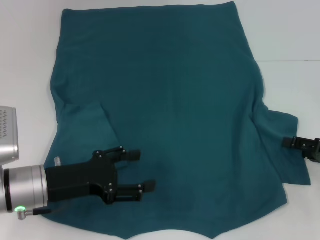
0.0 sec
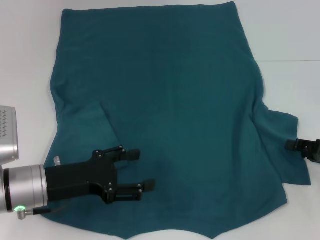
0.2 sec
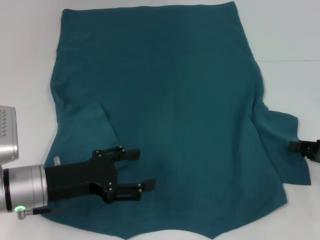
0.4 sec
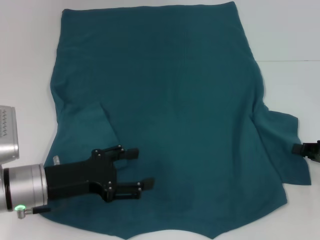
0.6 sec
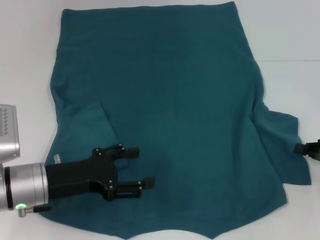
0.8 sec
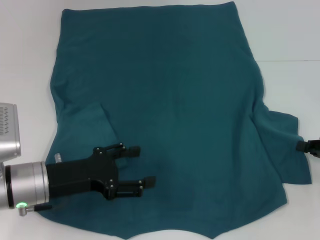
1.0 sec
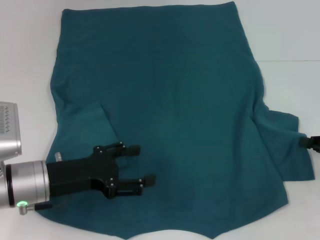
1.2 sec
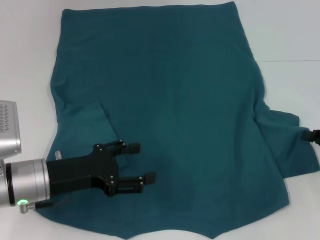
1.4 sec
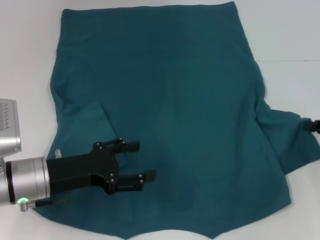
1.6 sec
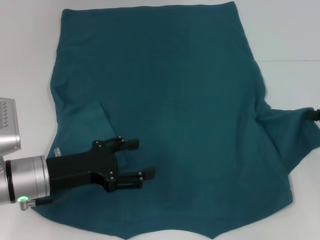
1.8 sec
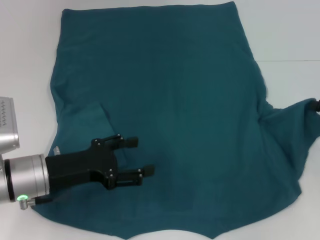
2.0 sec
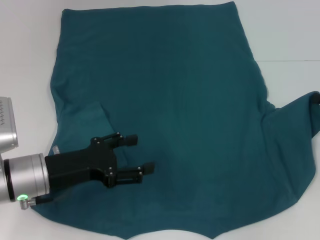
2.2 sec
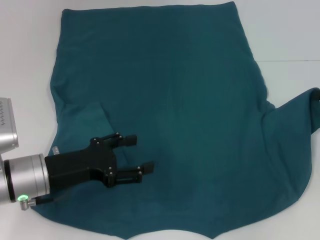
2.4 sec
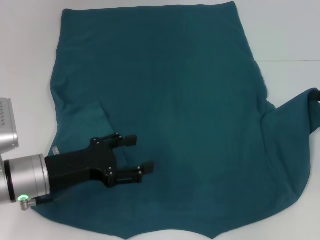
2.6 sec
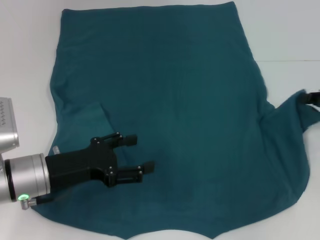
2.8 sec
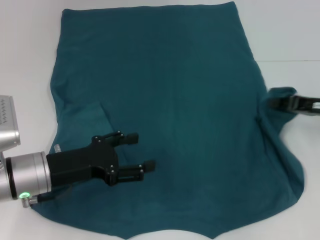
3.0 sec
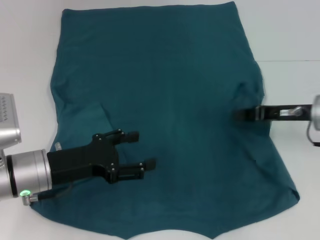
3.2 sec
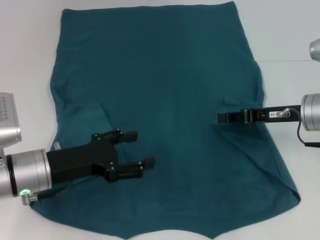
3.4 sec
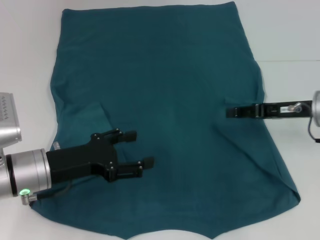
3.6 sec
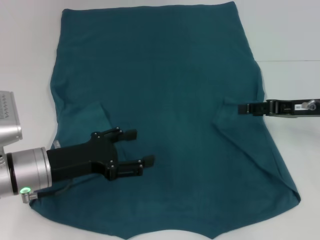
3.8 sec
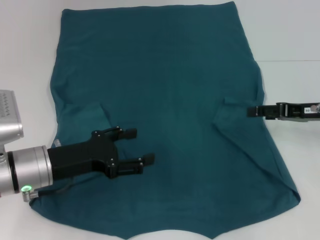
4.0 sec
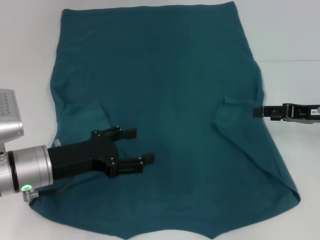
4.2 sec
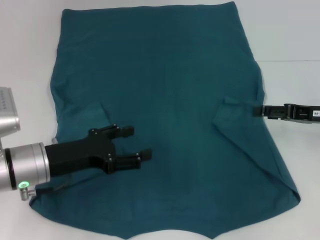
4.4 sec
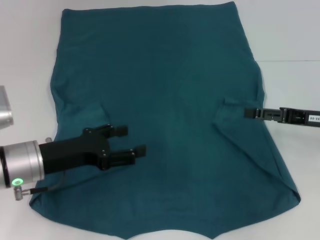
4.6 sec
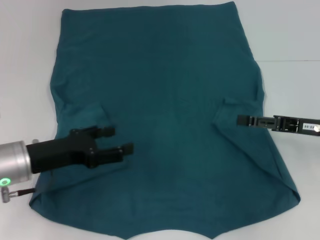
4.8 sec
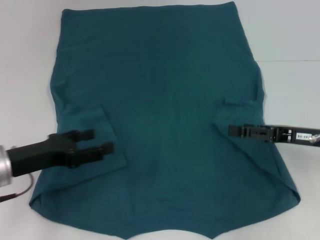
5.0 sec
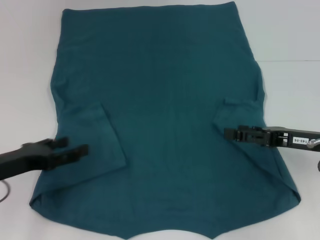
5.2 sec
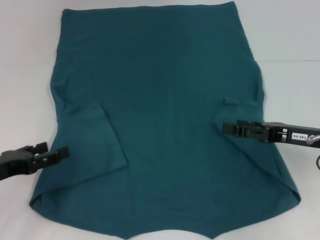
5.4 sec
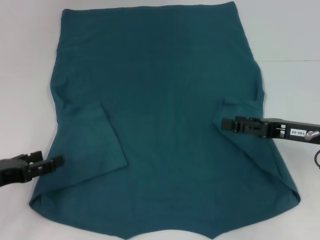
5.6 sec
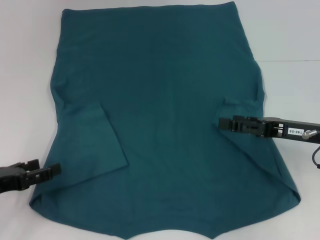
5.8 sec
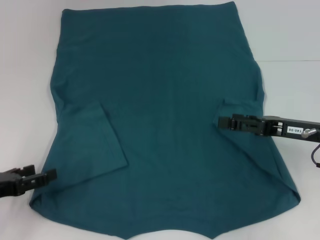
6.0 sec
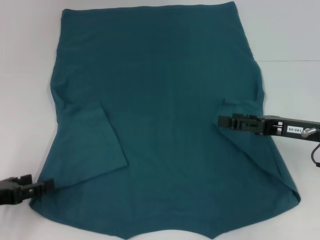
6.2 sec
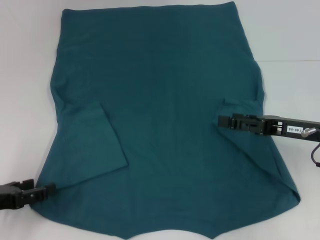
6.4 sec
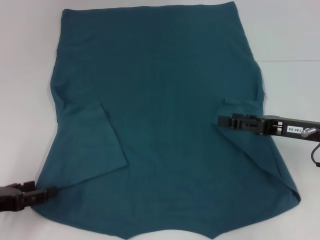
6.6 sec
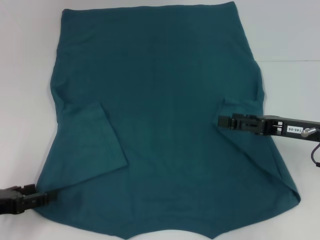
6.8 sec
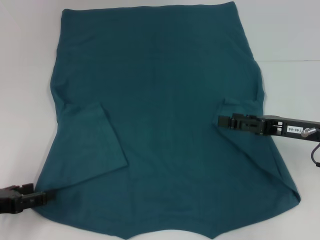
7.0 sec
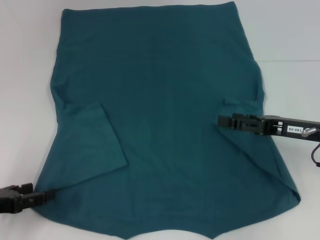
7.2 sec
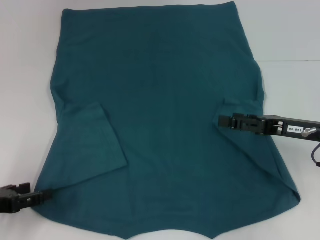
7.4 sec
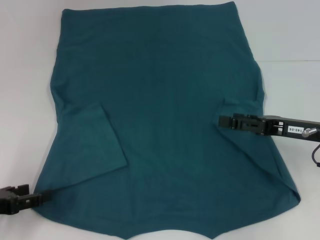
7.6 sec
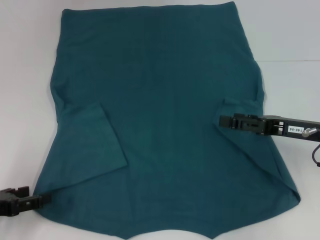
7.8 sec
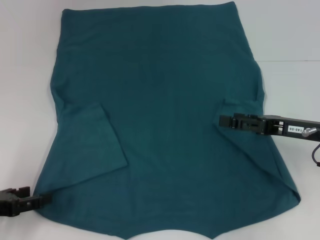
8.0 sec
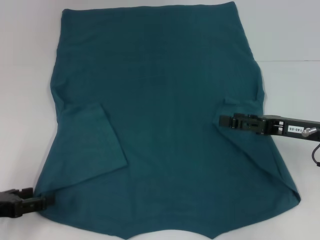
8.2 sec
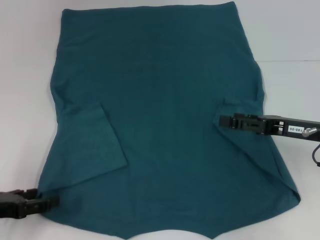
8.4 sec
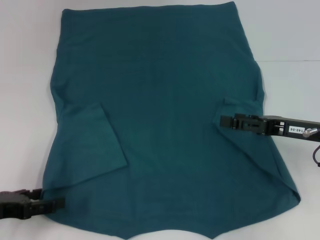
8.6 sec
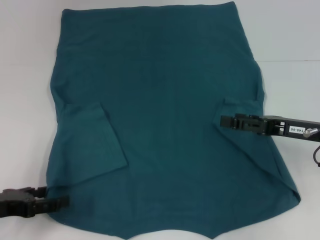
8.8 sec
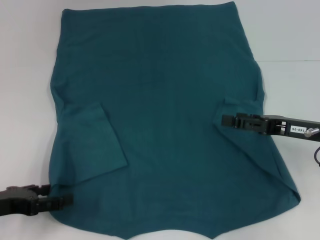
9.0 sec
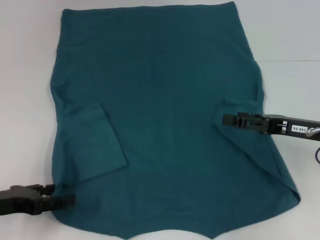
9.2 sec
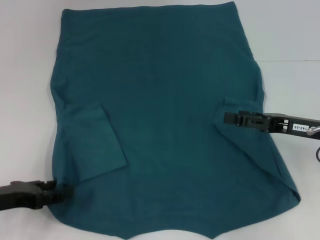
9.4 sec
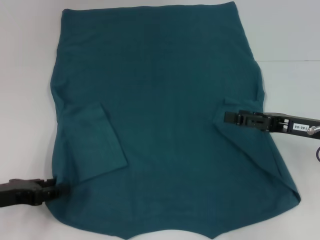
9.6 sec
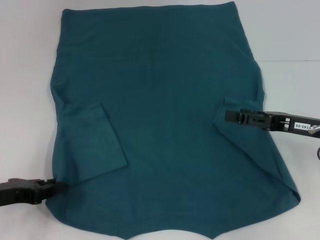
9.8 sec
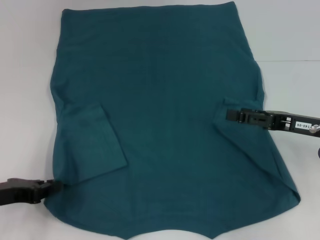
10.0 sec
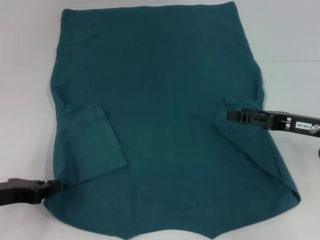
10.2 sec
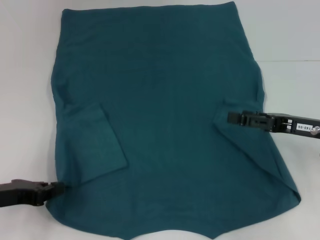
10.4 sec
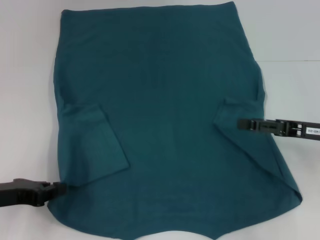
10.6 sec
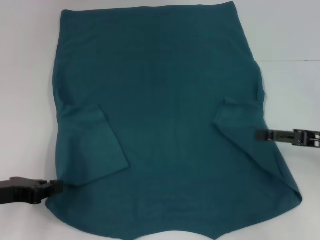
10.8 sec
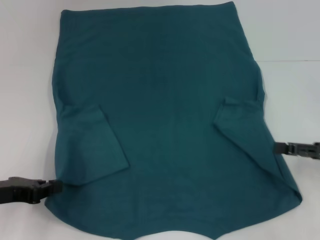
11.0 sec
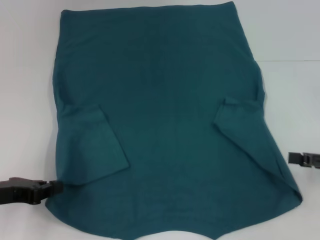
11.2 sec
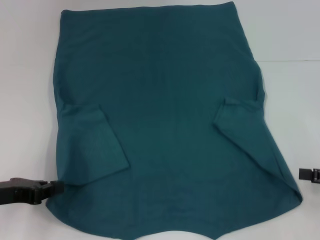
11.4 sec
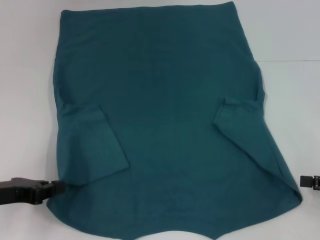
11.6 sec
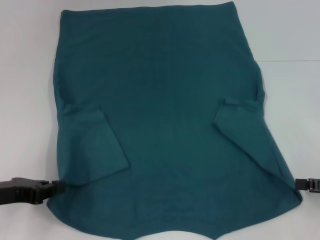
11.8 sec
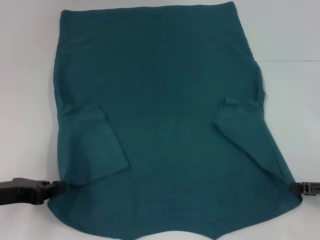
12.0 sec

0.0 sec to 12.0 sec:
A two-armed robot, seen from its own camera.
Step, 0.0 sec to 4.8 sec: Fold the bottom right sleeve to the right.
Step, 5.0 sec to 10.8 sec: Grab the bottom left corner with your left hand.
0.0 sec to 1.6 sec: The right gripper closes up.
1.6 sec to 3.0 sec: The right gripper moves roughly 10 cm.
3.0 sec to 4.4 sec: The right gripper opens its fingers.
4.4 sec to 6.0 sec: The right gripper ends up some 5 cm from where it was, while the left gripper heads to the left and backward, covering approximately 15 cm.
6.0 sec to 9.0 sec: There are only small adjustments of the grippers.
9.0 sec to 10.4 sec: The left gripper closes up.
10.4 sec to 12.0 sec: The right gripper moves to the right and backward, roughly 10 cm.

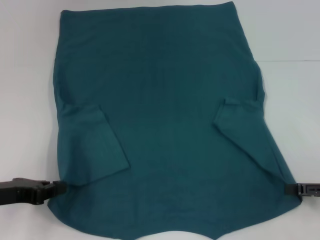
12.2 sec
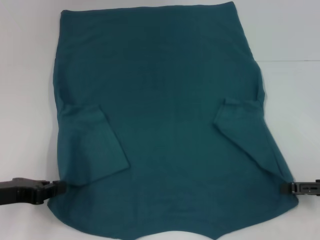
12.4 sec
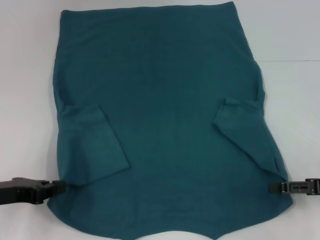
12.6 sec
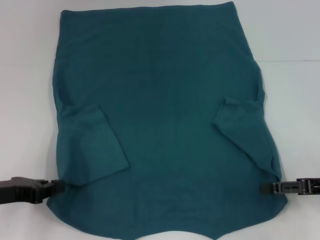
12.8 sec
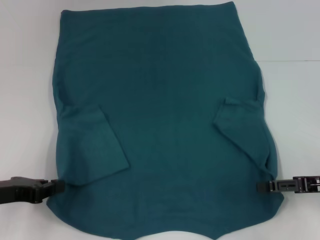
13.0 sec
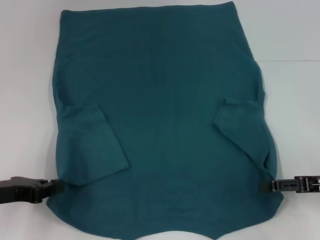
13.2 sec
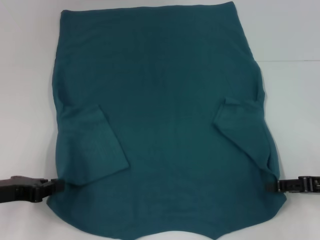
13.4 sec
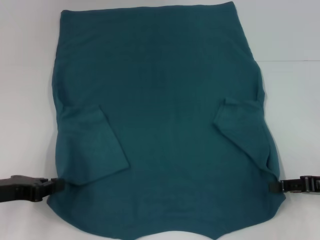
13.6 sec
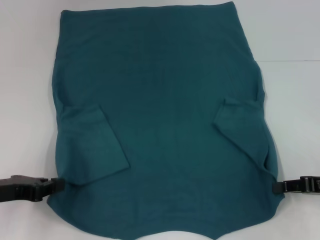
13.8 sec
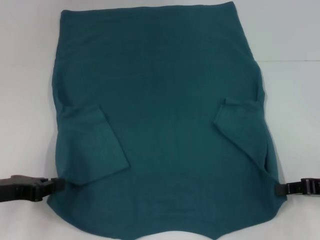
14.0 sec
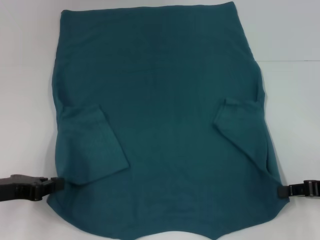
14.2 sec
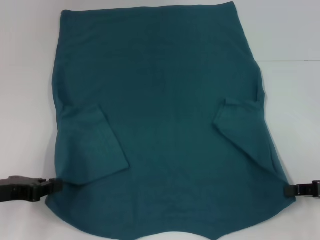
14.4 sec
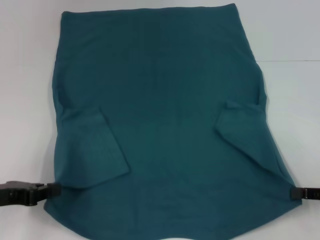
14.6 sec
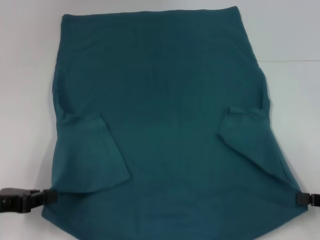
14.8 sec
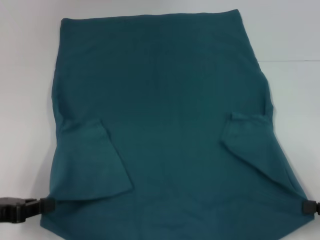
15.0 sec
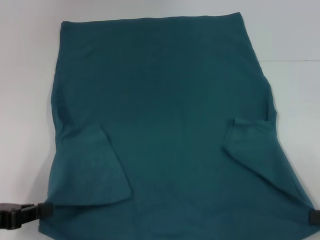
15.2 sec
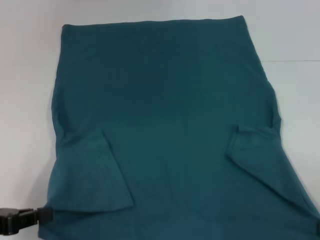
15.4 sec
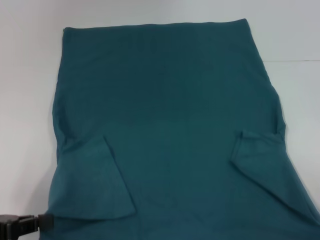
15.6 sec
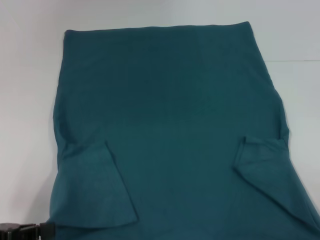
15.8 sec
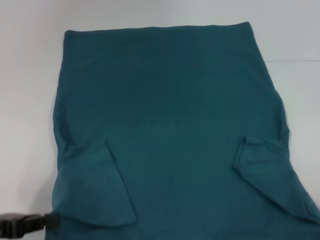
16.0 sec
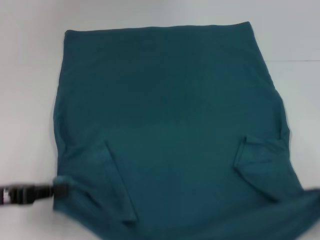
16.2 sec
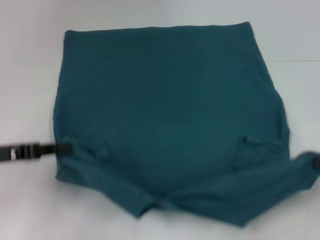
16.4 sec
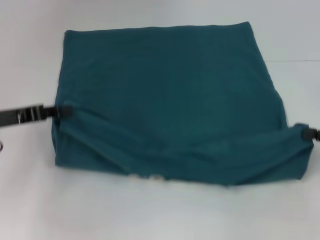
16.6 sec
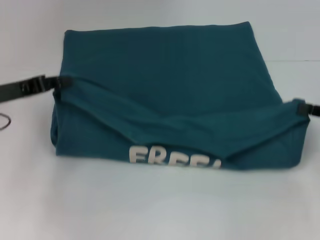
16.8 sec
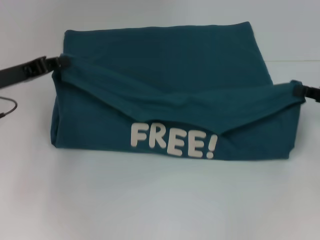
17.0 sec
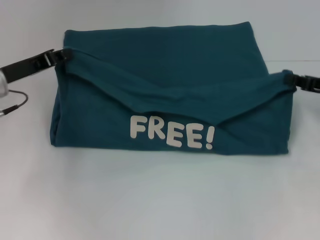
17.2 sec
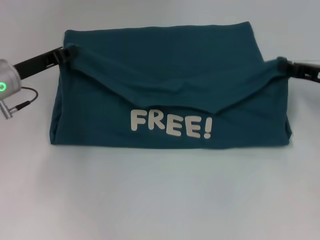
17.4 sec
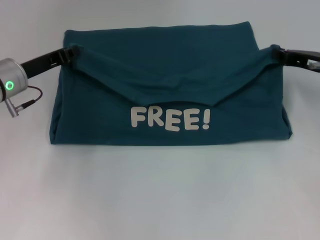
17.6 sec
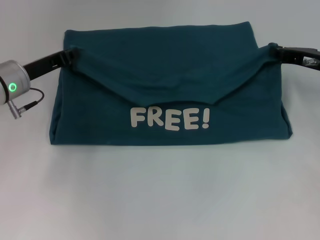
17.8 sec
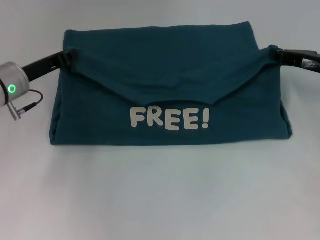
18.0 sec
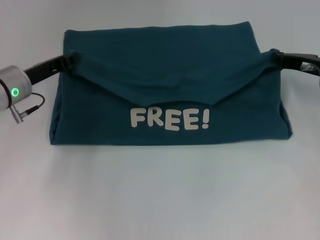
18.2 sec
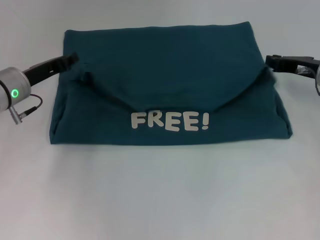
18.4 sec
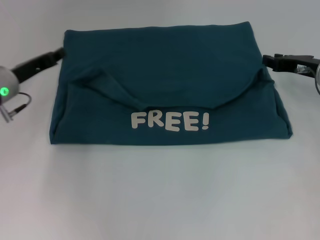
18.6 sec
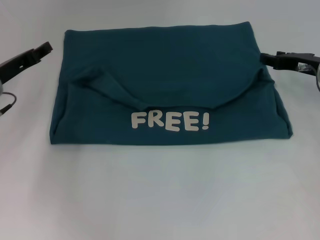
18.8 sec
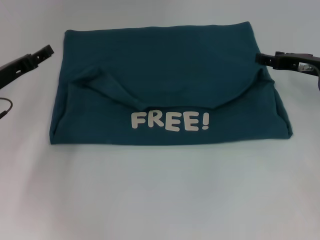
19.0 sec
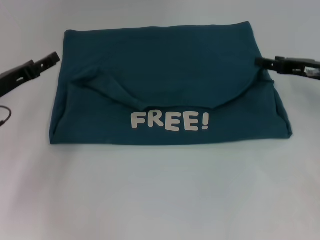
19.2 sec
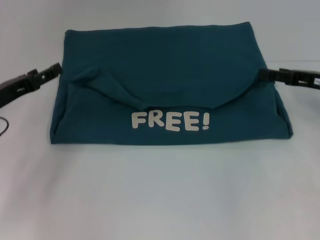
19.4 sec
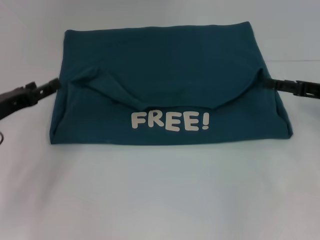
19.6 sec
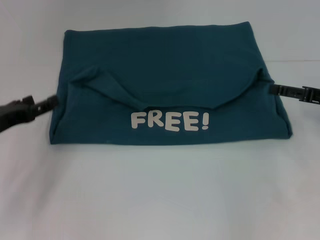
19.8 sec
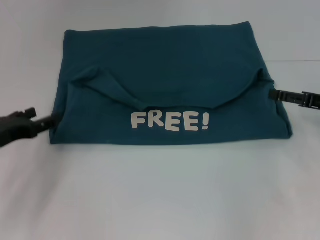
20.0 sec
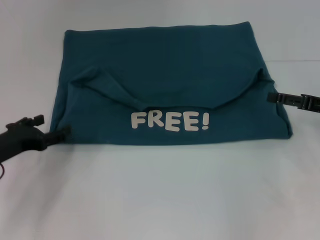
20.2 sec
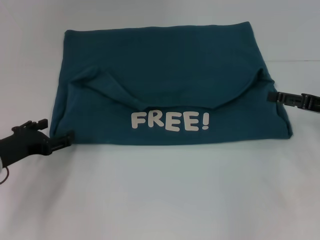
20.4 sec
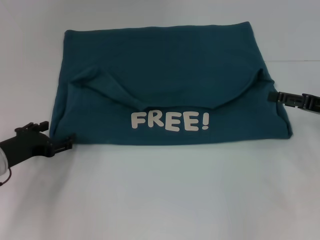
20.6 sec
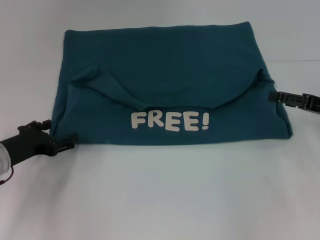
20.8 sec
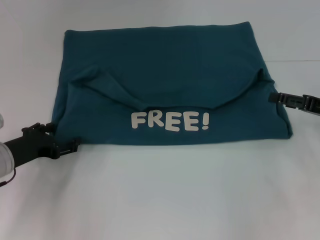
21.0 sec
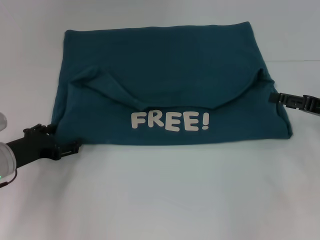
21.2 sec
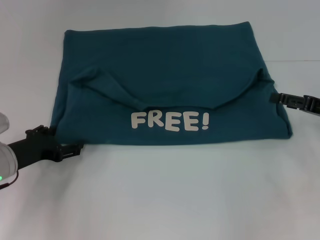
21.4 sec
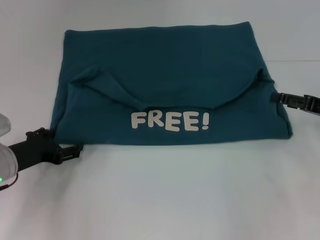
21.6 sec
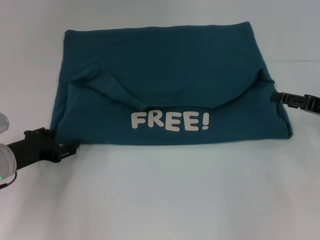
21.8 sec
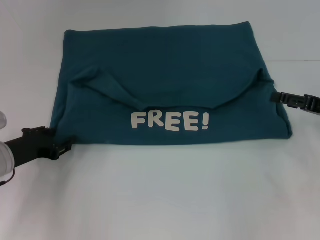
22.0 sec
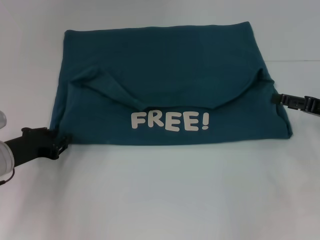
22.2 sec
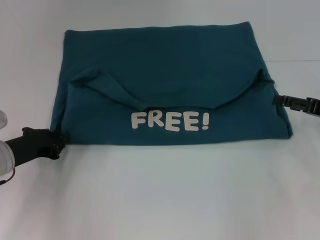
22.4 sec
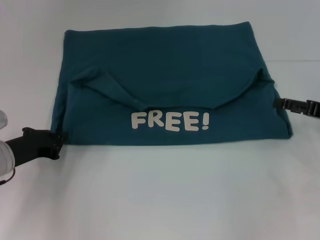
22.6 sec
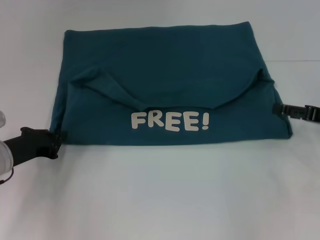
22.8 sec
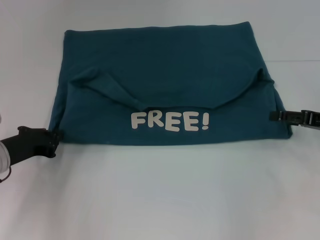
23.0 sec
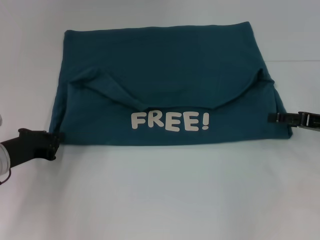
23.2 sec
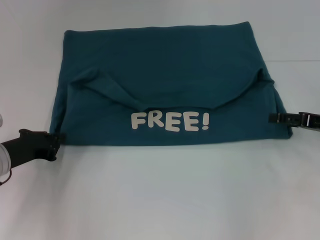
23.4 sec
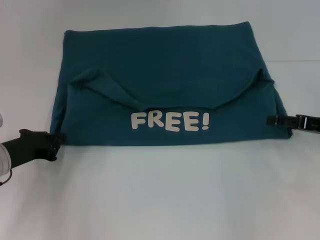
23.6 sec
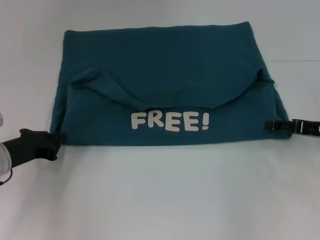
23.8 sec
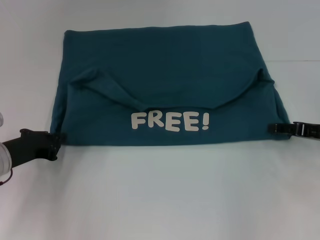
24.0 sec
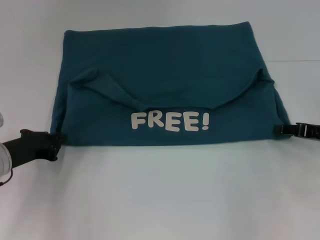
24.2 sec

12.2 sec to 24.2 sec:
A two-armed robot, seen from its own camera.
Step, 12.2 sec to 14.0 sec: Grab the bottom right corner with your right hand.
Step, 14.2 sec to 19.0 sec: Fold the clothes to the left.
Step, 14.2 sec to 19.0 sec: Fold the clothes to the right.
12.2 sec to 13.8 sec: The right gripper closes.
13.8 sec to 15.2 sec: The left gripper moves some 5 cm, while the right gripper is displaced backward by roughly 10 cm.
15.2 sec to 16.6 sec: The grippers both shift forward by some 10 cm.
16.6 sec to 18.2 sec: The right gripper is displaced forward and to the left by about 15 cm. The left gripper shifts some 10 cm forward and to the right.
18.2 sec to 19.8 sec: The left gripper travels backward and to the left by approximately 10 cm, and opens. Meanwhile the right gripper heads backward, covering approximately 5 cm, and opens up.
19.8 sec to 21.2 sec: The left gripper shifts by about 5 cm.
21.2 sec to 22.6 sec: The left gripper closes its fingers.
22.6 sec to 24.2 sec: The grippers make only small movements.
